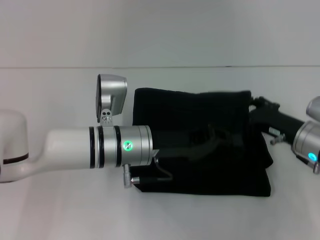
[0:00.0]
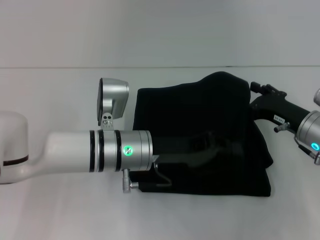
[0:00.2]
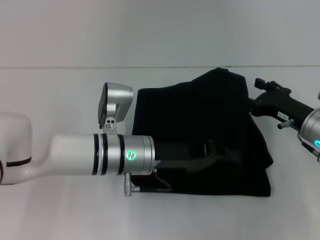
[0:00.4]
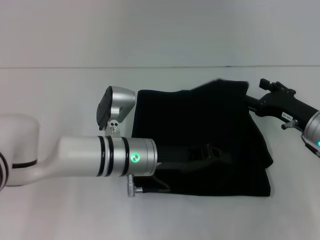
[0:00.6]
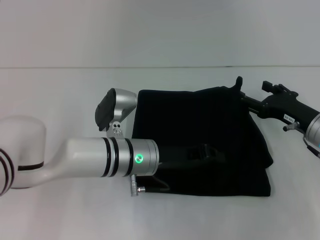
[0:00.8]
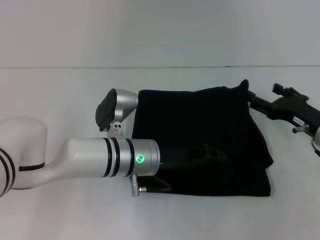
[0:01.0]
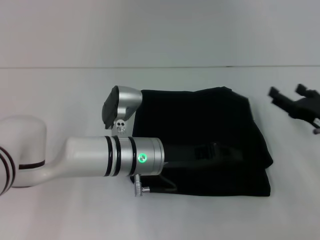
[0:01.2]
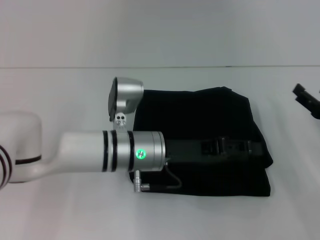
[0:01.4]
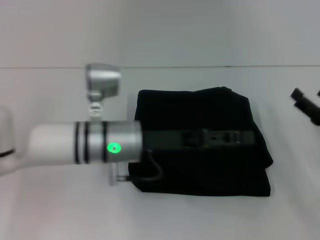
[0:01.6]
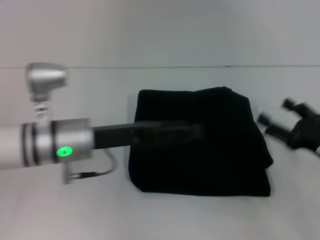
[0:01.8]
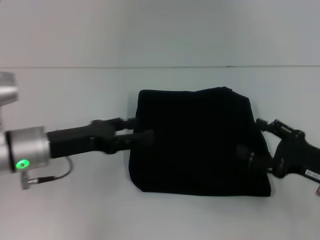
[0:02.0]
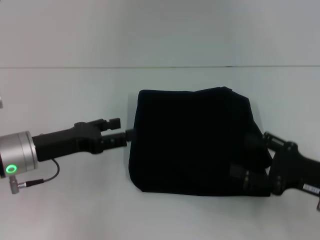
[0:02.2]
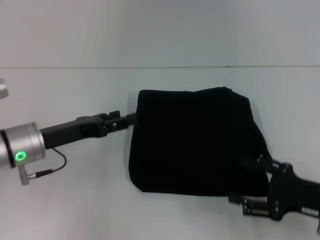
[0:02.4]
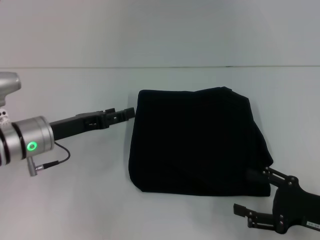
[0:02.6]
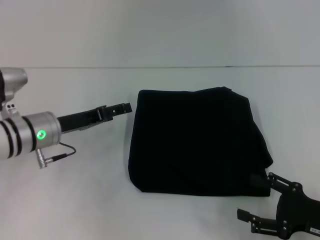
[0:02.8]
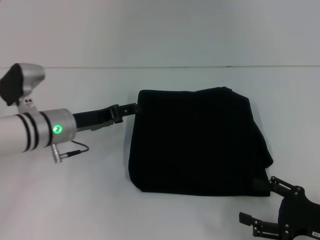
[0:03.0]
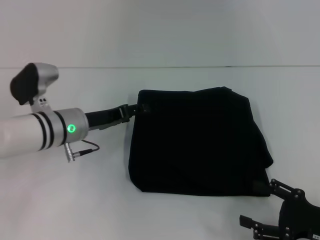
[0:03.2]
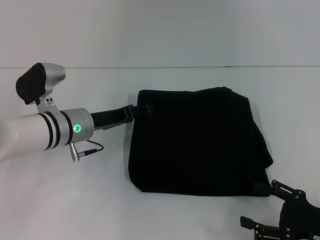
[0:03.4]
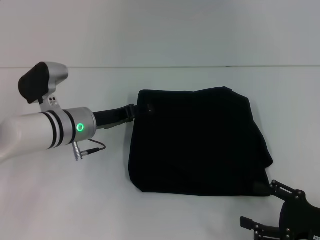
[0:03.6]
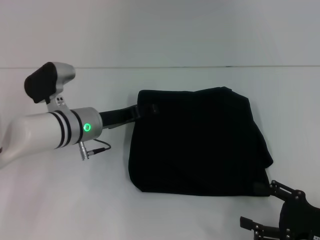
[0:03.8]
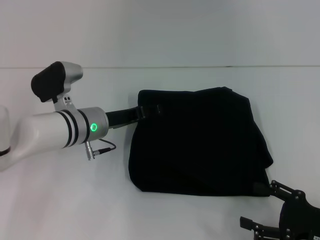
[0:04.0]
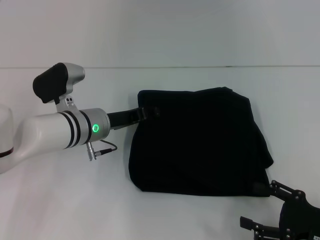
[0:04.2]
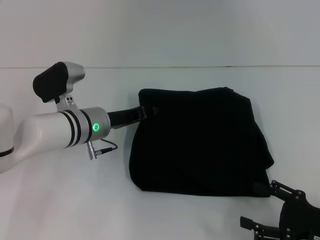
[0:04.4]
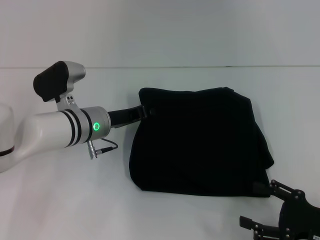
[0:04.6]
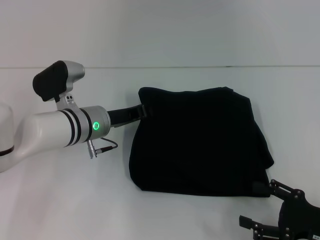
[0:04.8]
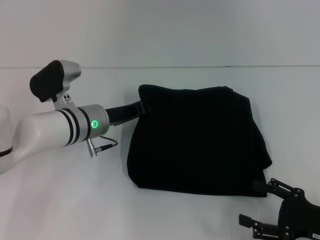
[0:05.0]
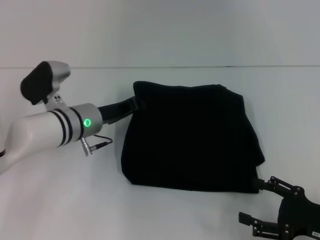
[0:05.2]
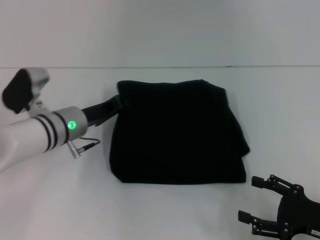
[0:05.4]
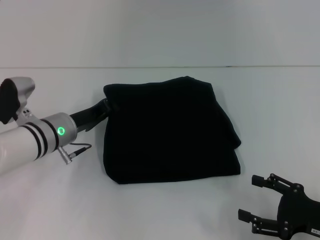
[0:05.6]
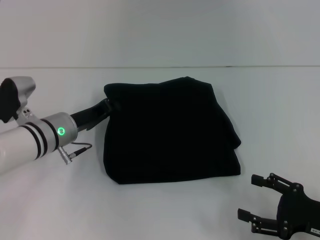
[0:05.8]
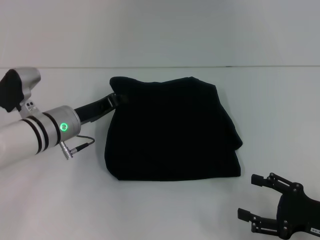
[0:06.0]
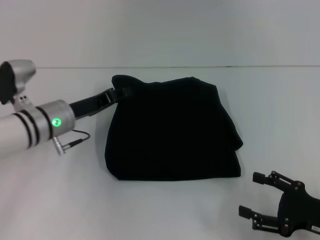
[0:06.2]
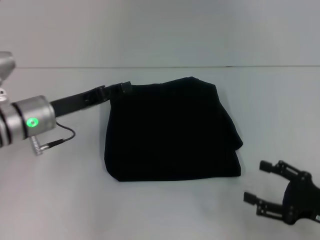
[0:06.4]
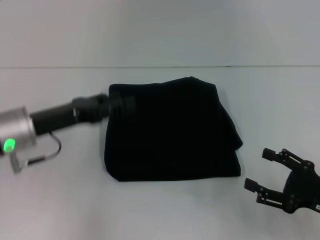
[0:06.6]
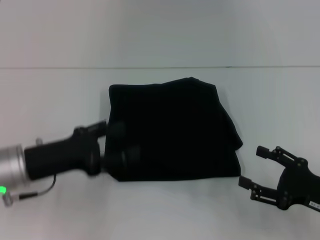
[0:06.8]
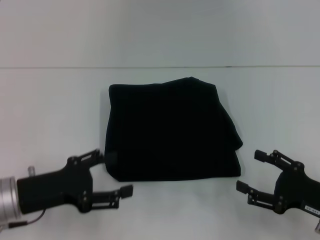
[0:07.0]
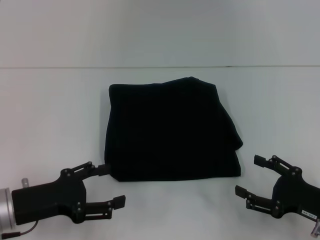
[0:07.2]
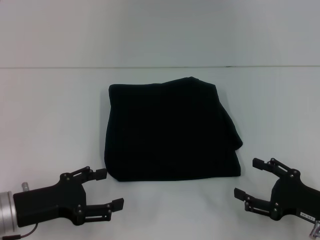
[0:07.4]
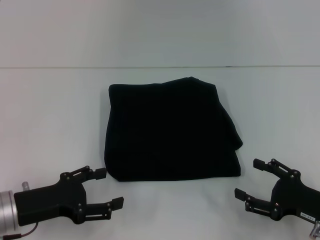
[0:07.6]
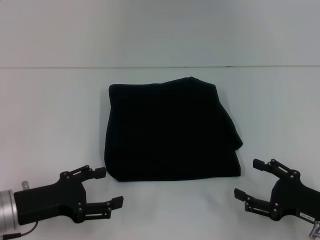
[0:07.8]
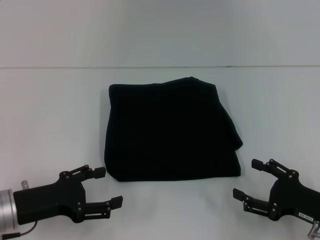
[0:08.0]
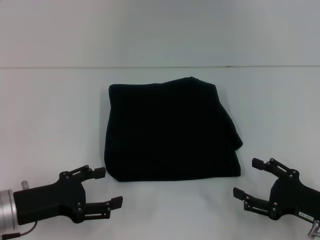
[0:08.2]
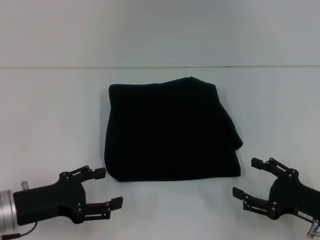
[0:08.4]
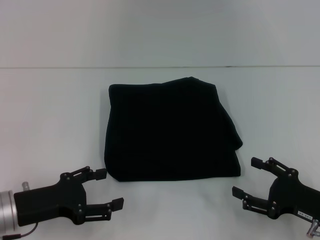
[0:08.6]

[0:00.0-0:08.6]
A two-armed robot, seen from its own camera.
0:00.0 to 0:01.4: The right gripper moves to the right, some 5 cm; the left gripper opens up.
0:01.4 to 0:02.8: The left gripper travels to the left by approximately 15 cm, and opens its fingers. The right gripper shifts approximately 10 cm backward.
0:02.8 to 0:04.4: The left gripper is displaced to the right by some 10 cm.
0:04.4 to 0:05.8: The left gripper shifts some 5 cm to the left, and closes its fingers.
0:05.8 to 0:07.2: The left gripper travels backward and to the left by approximately 15 cm, and opens up.
0:07.2 to 0:08.6: Neither gripper changes place.

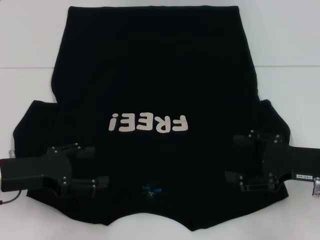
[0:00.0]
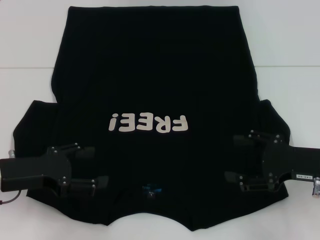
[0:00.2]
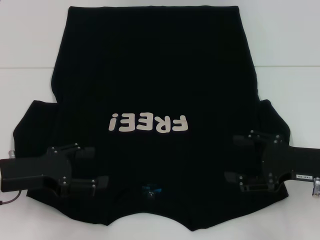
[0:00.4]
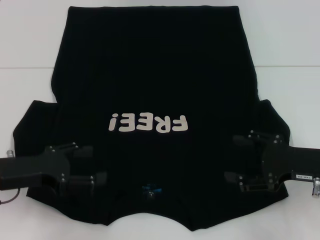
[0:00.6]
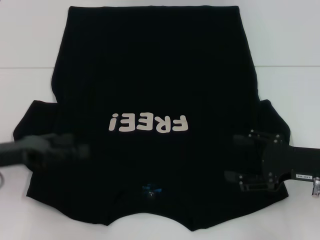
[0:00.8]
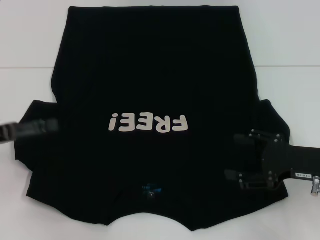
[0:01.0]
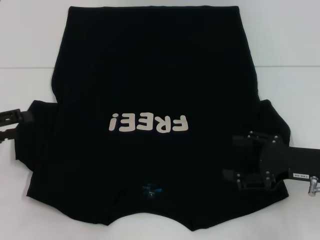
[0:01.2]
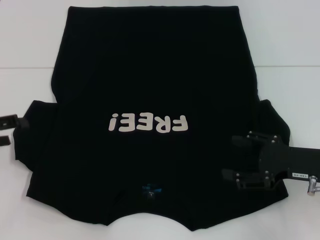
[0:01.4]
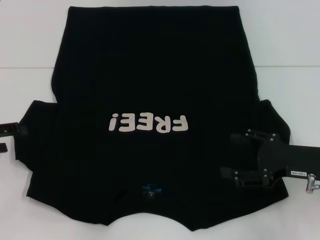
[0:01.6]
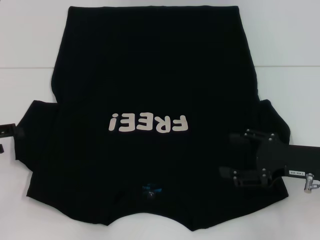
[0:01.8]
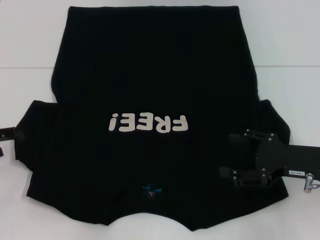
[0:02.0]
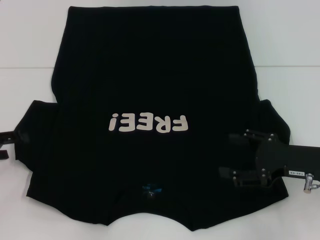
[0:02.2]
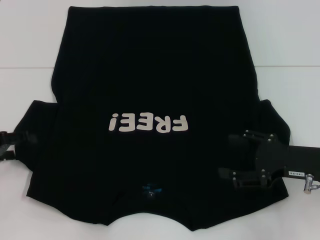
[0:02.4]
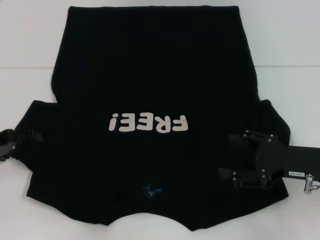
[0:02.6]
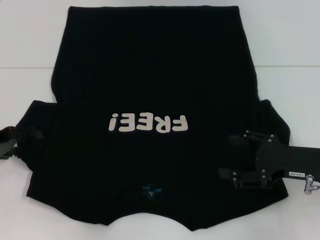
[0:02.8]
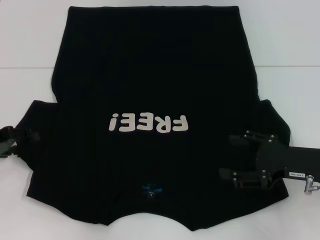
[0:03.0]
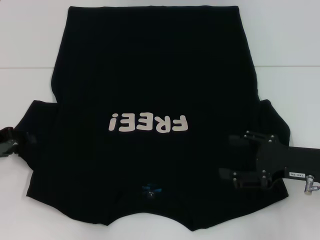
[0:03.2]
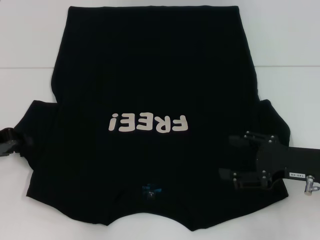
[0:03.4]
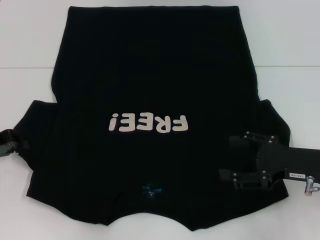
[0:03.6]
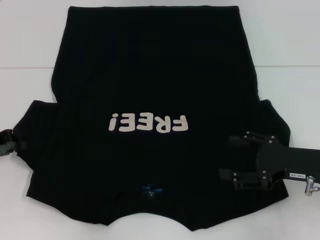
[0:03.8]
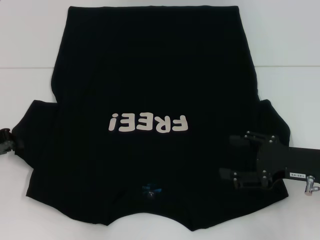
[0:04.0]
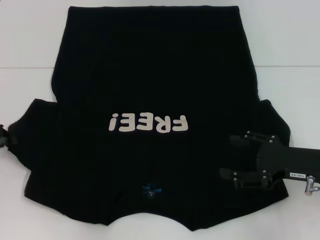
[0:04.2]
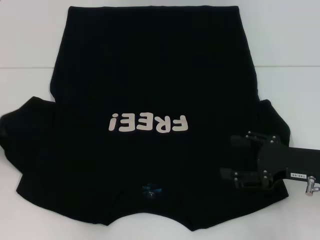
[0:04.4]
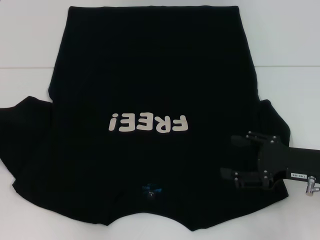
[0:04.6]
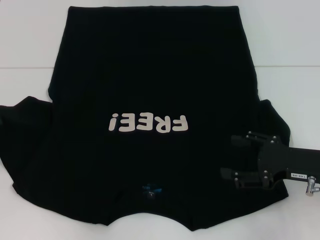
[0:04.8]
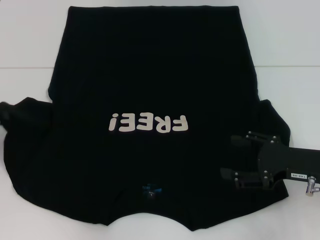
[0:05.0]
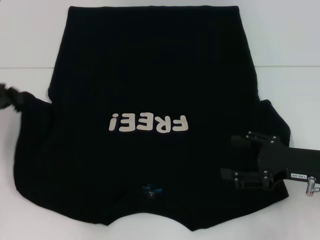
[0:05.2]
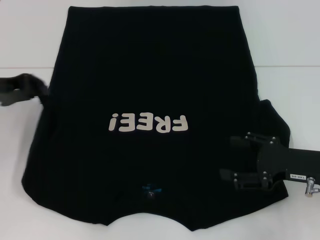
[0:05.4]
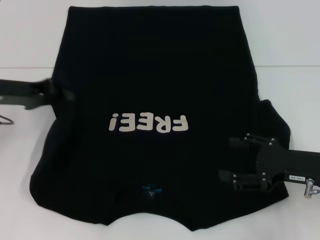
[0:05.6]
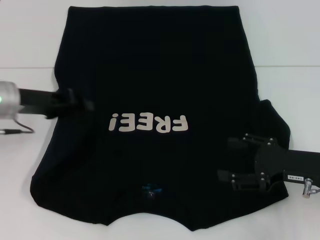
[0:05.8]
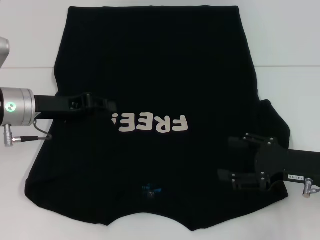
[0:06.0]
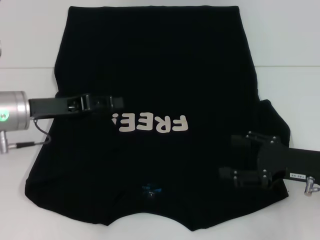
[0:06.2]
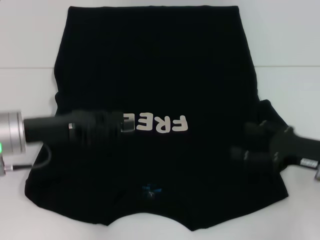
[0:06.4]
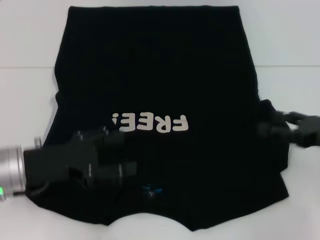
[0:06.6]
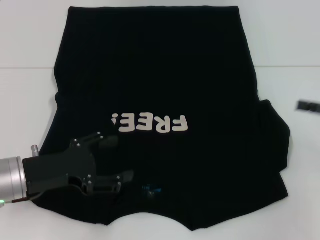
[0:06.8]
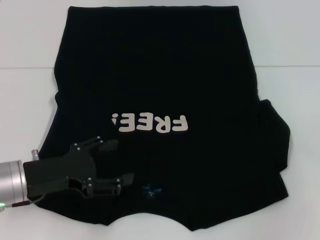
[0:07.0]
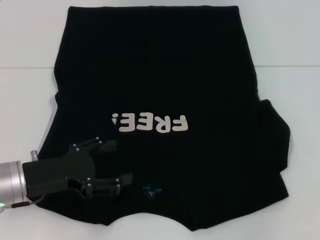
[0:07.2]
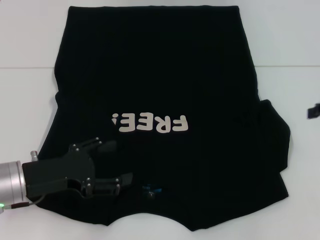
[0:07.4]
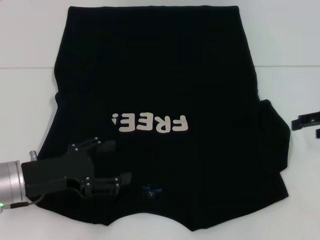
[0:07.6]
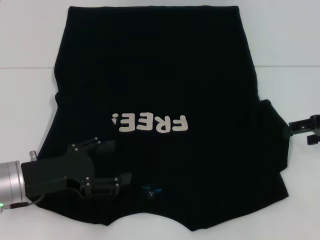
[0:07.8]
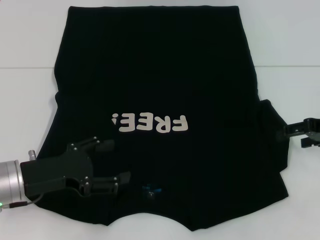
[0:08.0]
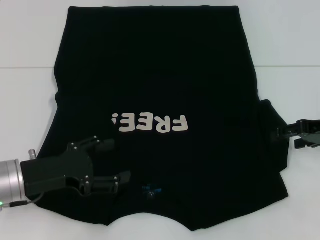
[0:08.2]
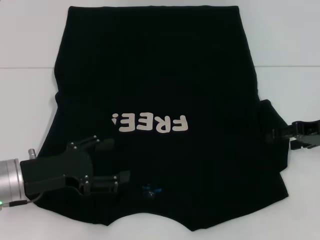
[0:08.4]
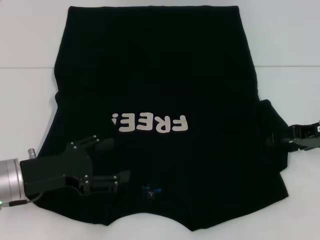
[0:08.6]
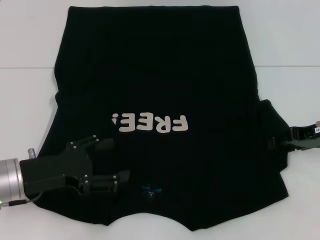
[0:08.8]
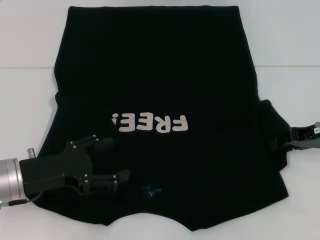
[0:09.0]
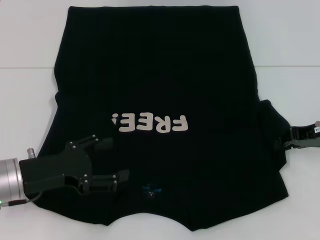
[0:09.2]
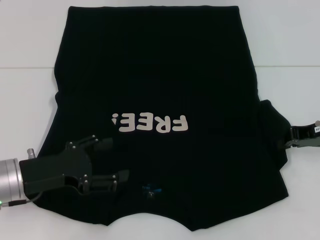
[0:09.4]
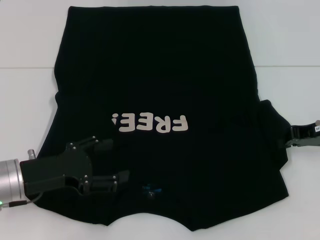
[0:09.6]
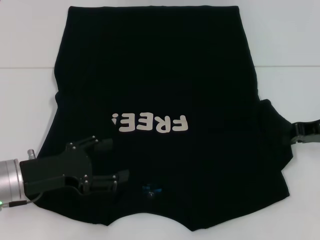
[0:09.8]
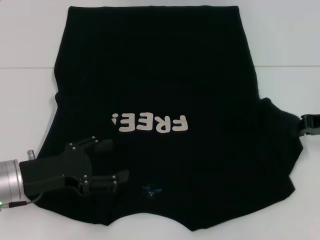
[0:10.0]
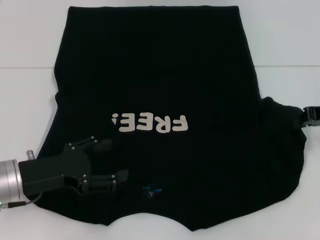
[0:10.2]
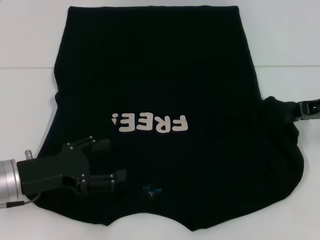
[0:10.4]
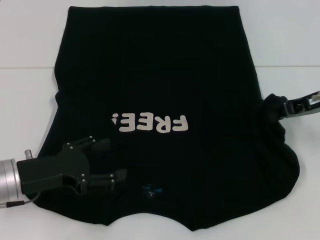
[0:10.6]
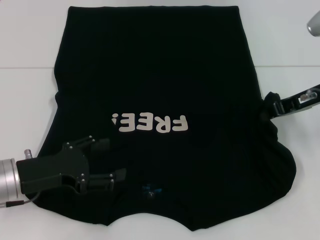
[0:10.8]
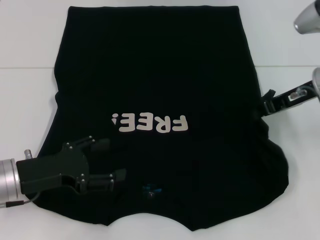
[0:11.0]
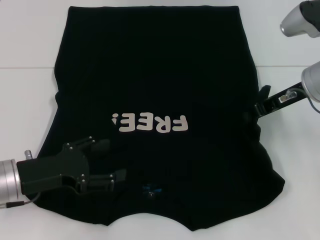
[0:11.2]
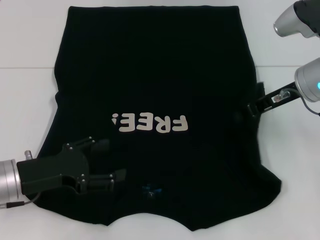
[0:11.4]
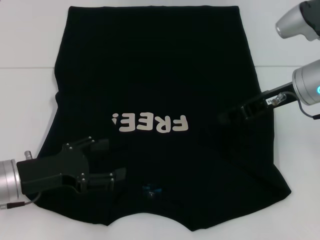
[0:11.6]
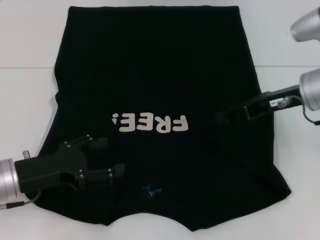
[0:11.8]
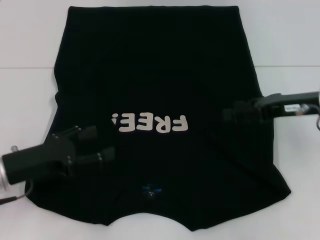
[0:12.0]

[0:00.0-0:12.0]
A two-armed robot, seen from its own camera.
Step, 0:00.0 to 0:06.0: Fold the bottom left sleeve with your left hand.
Step, 0:06.2 to 0:11.8: Fold the bottom right sleeve with your right hand.
0:00.0 to 0:01.6: The left gripper travels to the left by about 10 cm.
0:01.6 to 0:03.0: The grippers make only small movements.
0:03.0 to 0:04.4: The left gripper closes up.
0:04.4 to 0:06.0: The left gripper is displaced to the right by about 15 cm.
0:06.0 to 0:07.6: The right gripper shifts roughly 15 cm to the right, forward and upward, while the left gripper is displaced backward by about 10 cm, and opens.
0:07.6 to 0:09.0: The right gripper moves roughly 5 cm.
0:09.0 to 0:10.4: The right gripper closes up.
0:10.4 to 0:12.0: The right gripper opens.

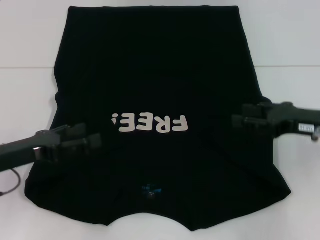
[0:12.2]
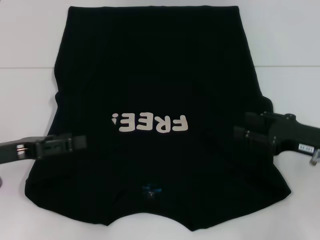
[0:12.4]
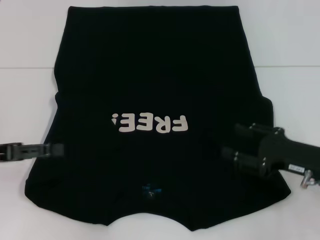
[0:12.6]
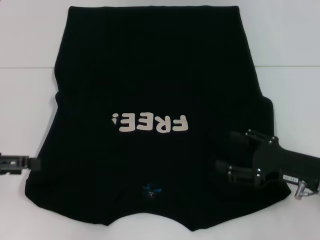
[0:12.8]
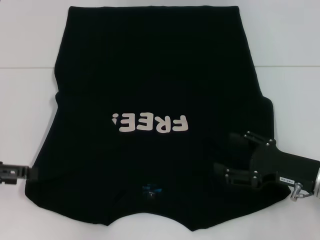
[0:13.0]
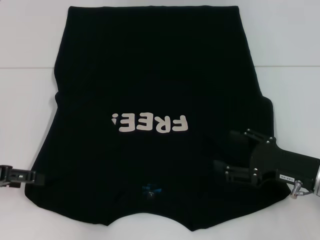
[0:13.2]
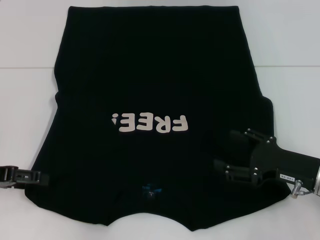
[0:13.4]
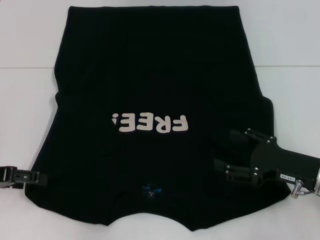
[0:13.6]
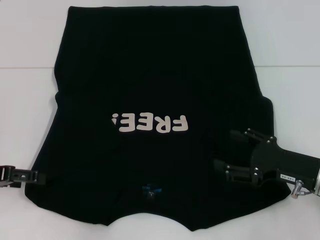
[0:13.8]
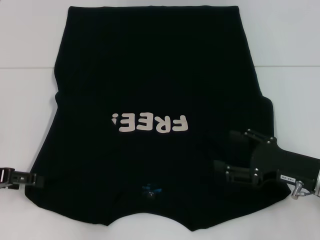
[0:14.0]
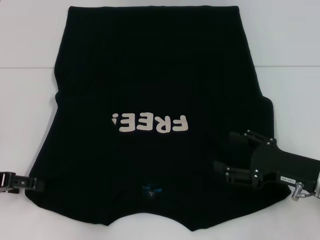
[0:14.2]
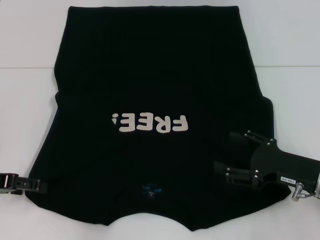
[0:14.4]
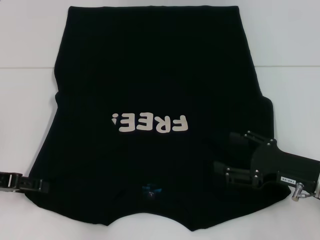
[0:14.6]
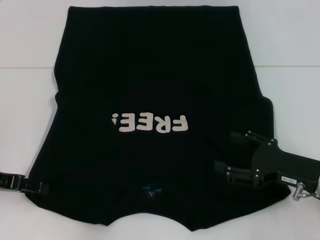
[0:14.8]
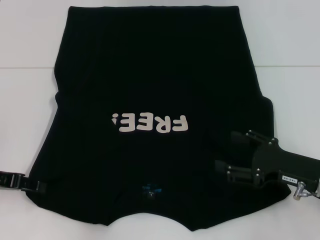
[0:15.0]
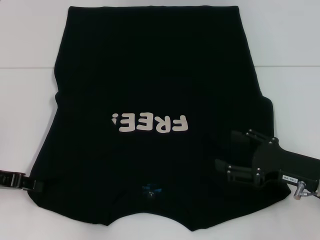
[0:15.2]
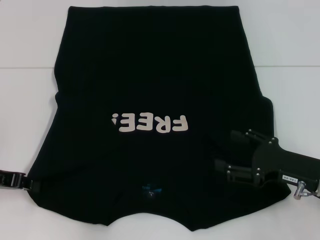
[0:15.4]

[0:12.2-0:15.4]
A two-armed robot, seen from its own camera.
0:12.2 to 0:13.8: The left gripper is displaced to the left by some 5 cm, while the right gripper shifts about 10 cm downward and backward.
0:13.8 to 0:15.4: The left gripper closes.
